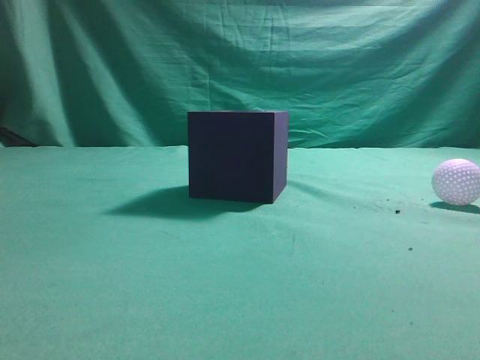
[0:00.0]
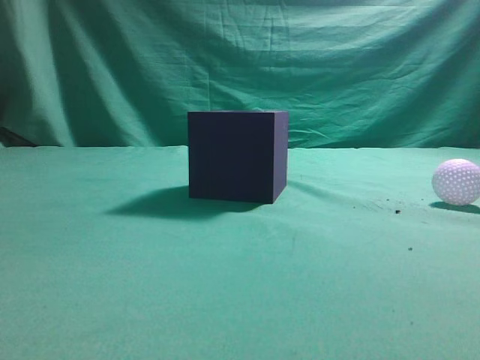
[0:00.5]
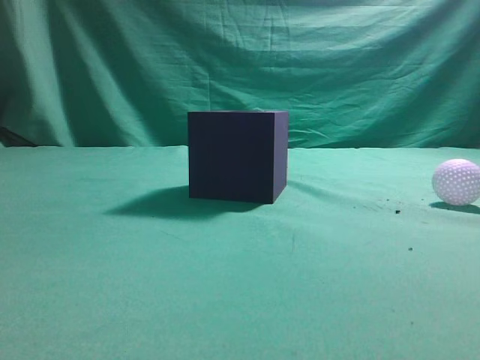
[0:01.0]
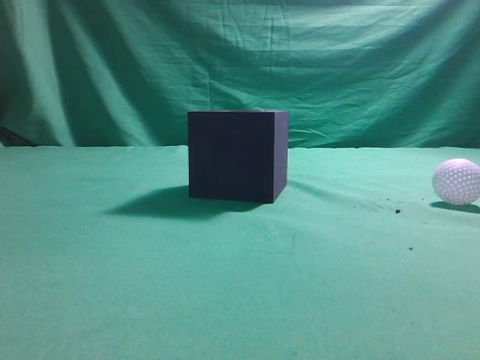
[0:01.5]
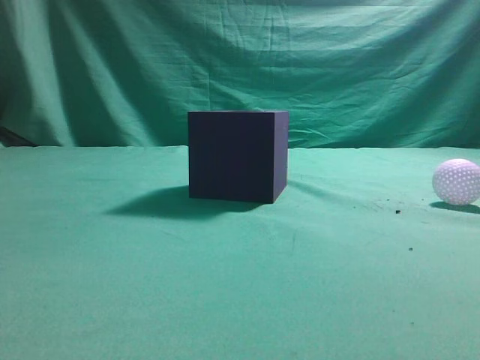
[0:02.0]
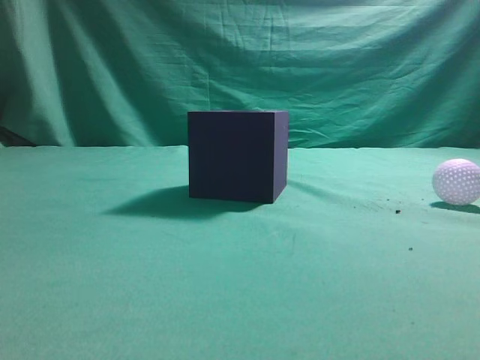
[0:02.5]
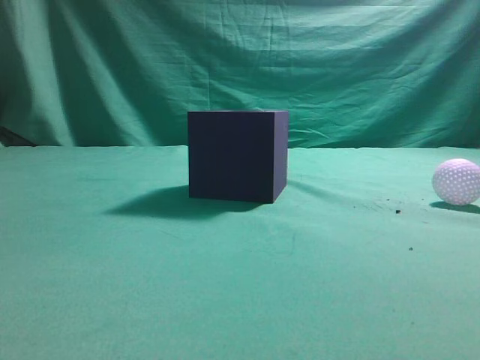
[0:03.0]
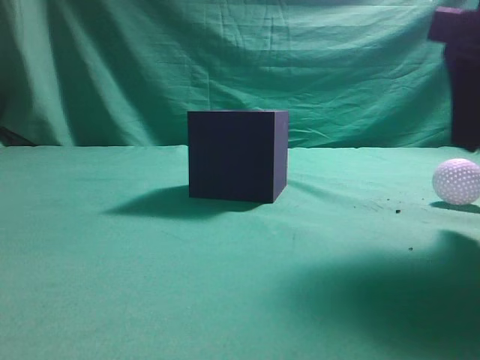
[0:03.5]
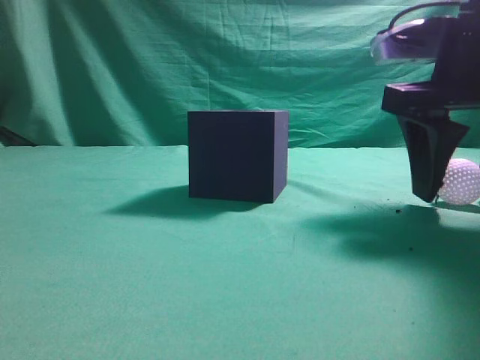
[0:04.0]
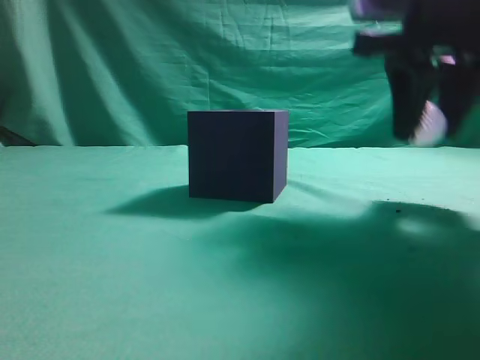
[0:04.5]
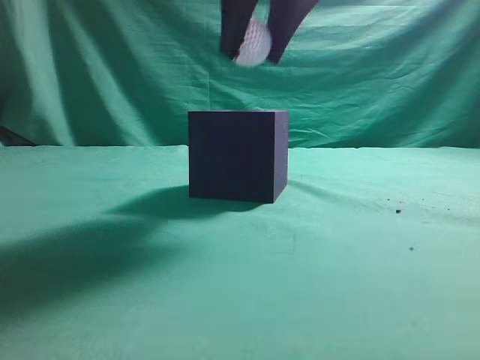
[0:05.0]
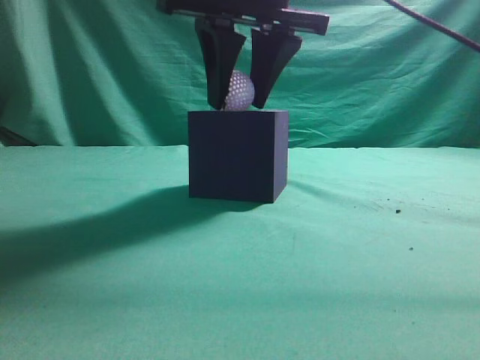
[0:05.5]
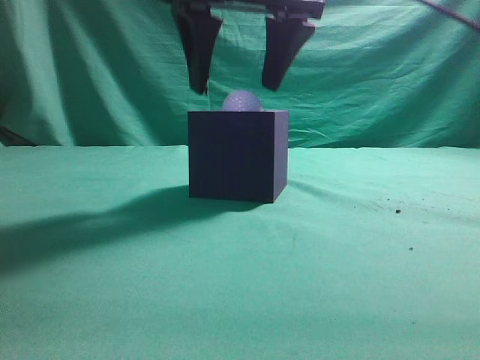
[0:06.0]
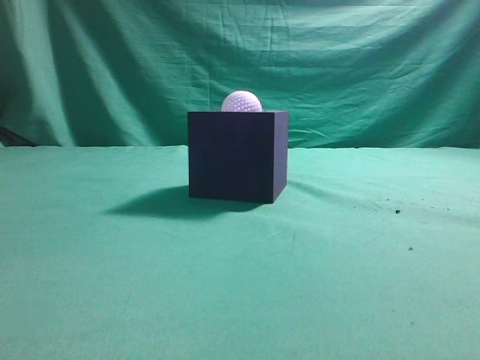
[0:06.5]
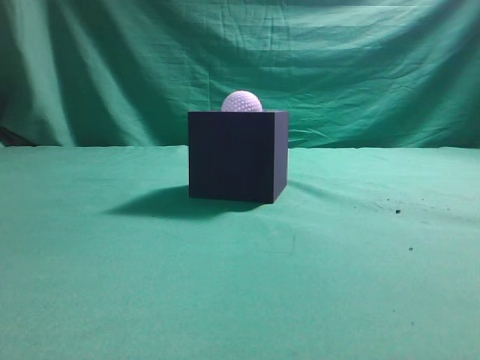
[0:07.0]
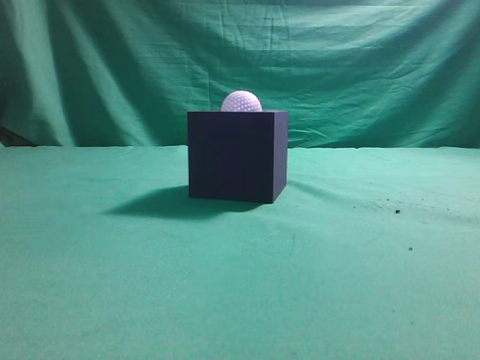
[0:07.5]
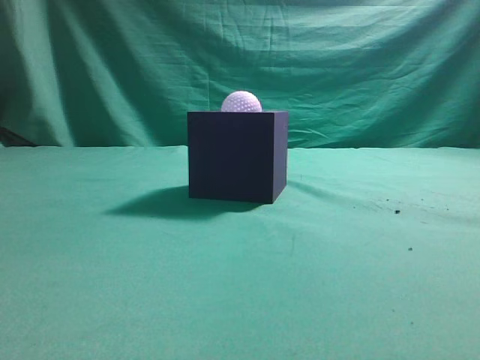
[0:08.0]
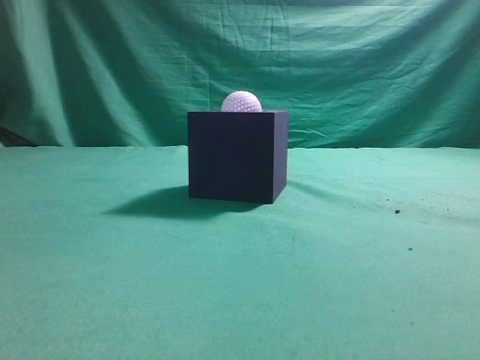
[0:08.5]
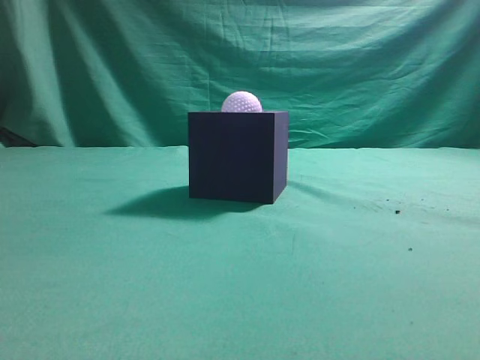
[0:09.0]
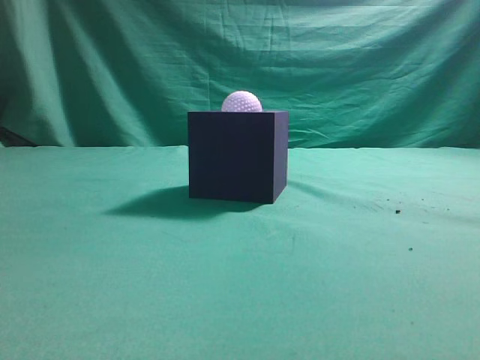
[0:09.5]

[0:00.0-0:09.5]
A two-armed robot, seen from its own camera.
Task of the whole recording: Pick up the ball and place it in the circular groove above the cube.
Step, 0:00.0 to 0:04.0: Grasp the sphere on the table.
Step, 0:04.5 to 0:06.0: Place the sphere into the sphere-shaped recess.
0:02.0 to 0:04.0: The right gripper moves forward and to the left, roughly 25 cm, and opens its fingers.
0:04.0 to 0:05.5: The right gripper is displaced to the left and upward by roughly 20 cm, and closes up.
0:05.5 to 0:07.5: The right gripper is displaced backward, to the right and upward by some 35 cm, and closes.
